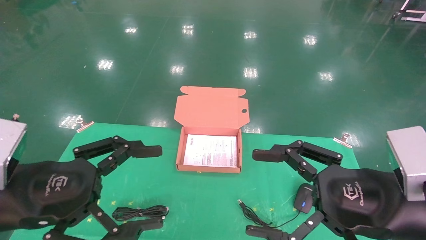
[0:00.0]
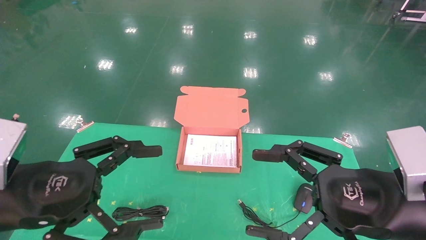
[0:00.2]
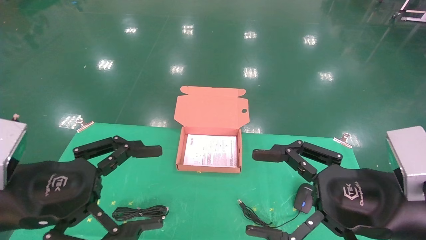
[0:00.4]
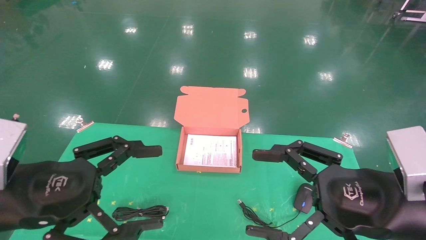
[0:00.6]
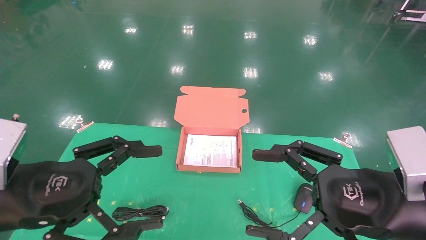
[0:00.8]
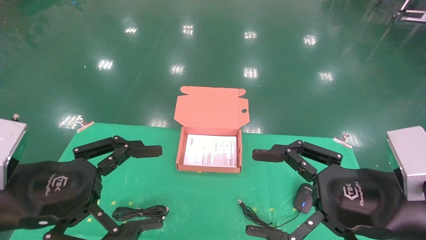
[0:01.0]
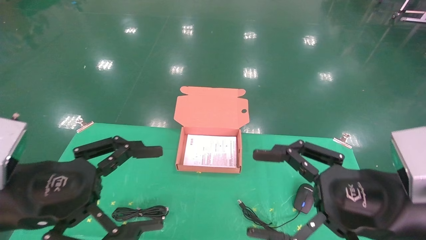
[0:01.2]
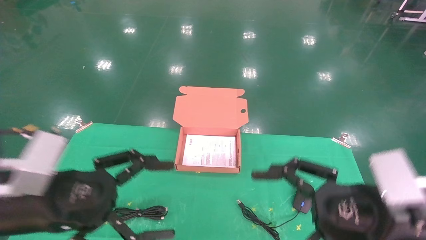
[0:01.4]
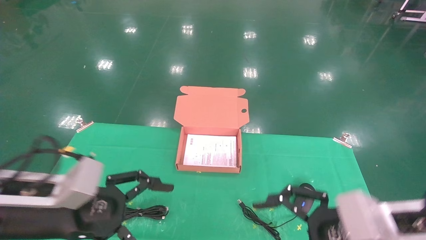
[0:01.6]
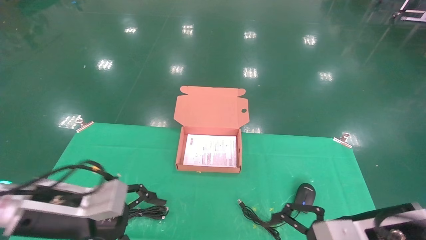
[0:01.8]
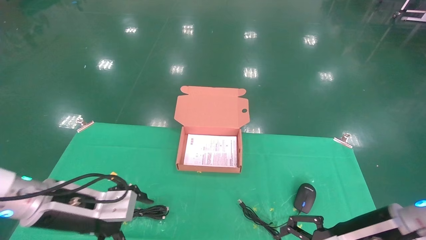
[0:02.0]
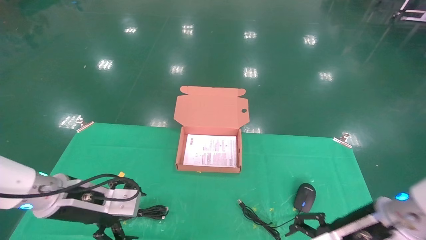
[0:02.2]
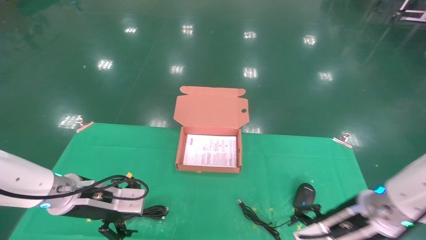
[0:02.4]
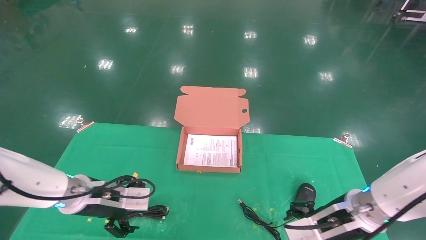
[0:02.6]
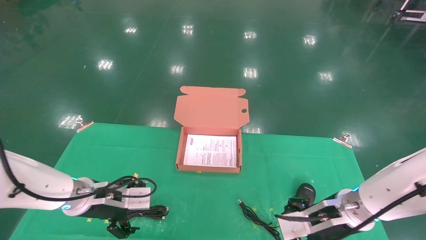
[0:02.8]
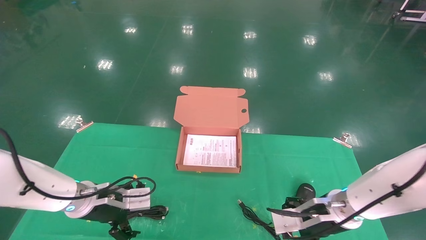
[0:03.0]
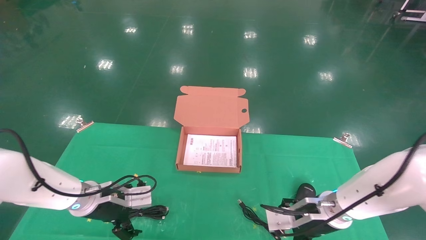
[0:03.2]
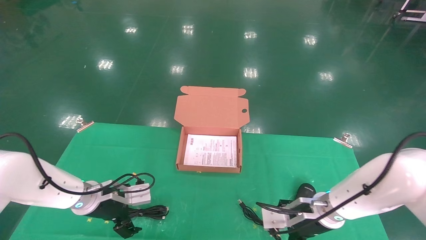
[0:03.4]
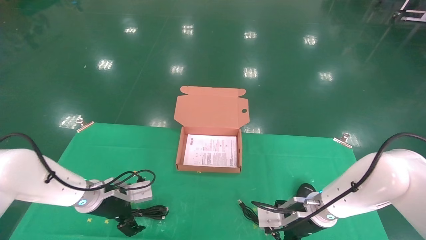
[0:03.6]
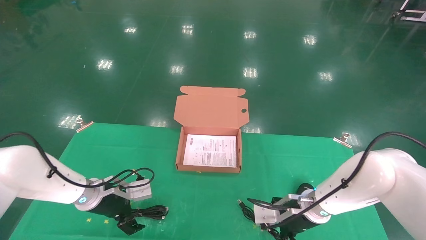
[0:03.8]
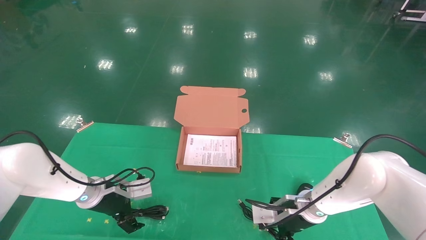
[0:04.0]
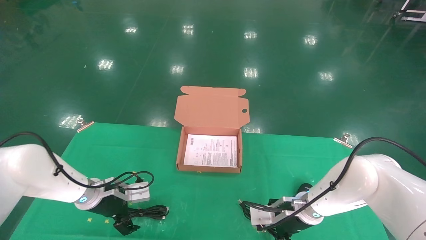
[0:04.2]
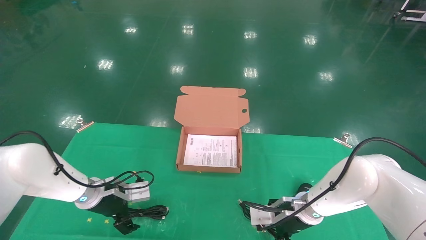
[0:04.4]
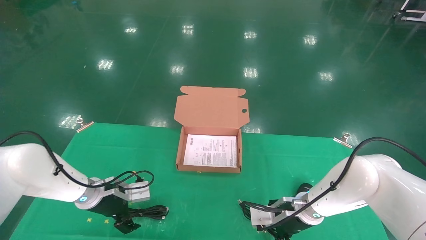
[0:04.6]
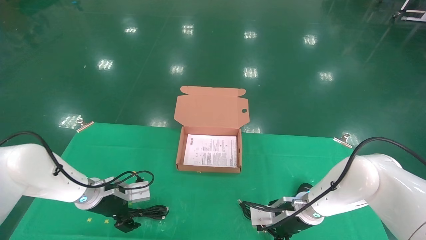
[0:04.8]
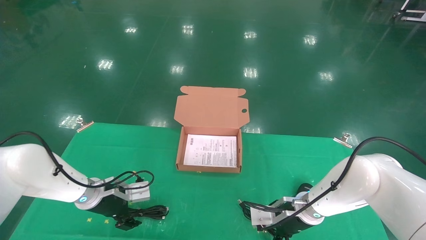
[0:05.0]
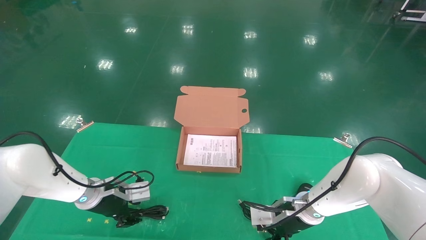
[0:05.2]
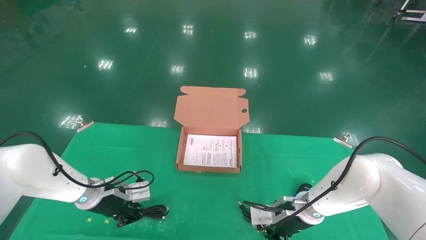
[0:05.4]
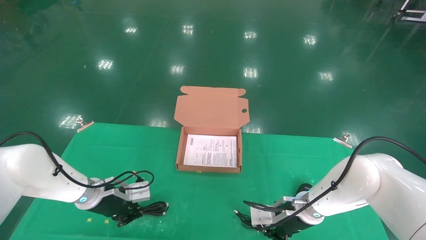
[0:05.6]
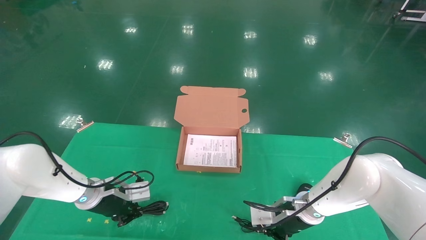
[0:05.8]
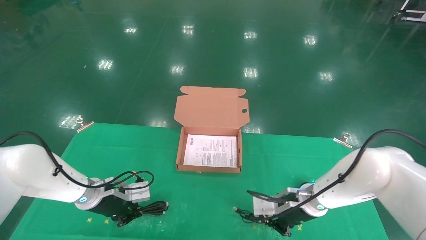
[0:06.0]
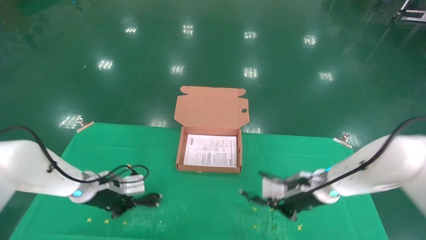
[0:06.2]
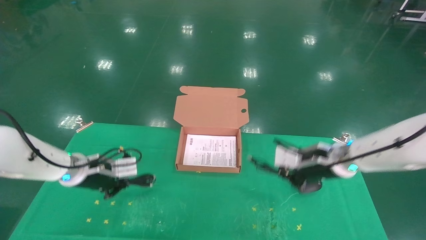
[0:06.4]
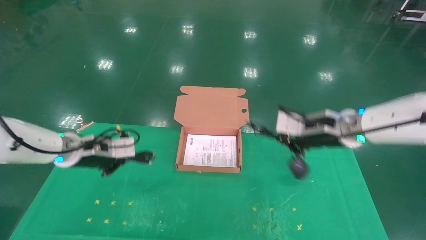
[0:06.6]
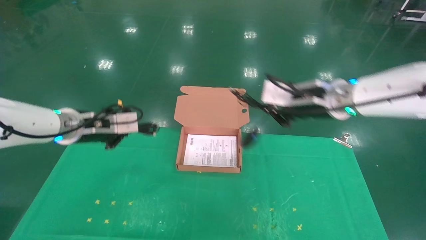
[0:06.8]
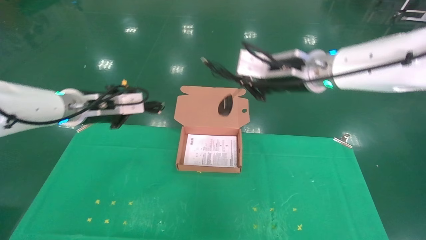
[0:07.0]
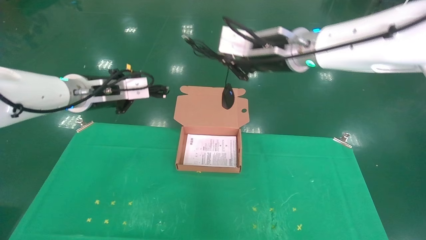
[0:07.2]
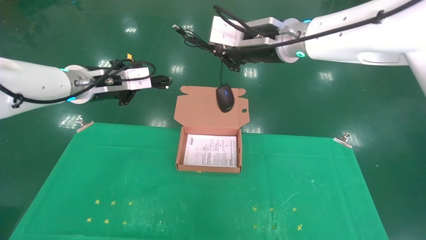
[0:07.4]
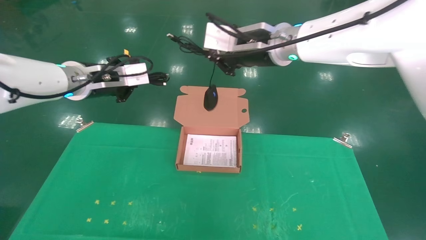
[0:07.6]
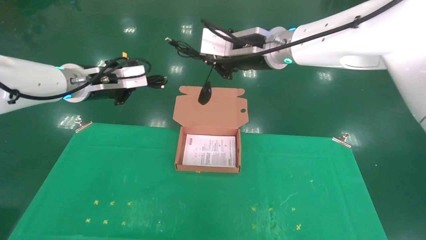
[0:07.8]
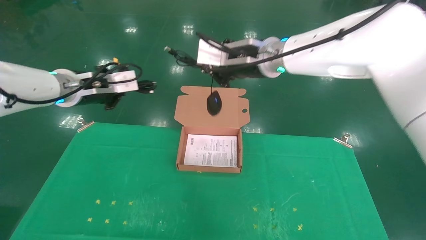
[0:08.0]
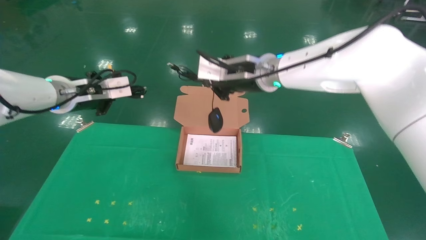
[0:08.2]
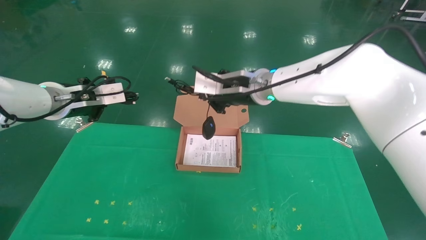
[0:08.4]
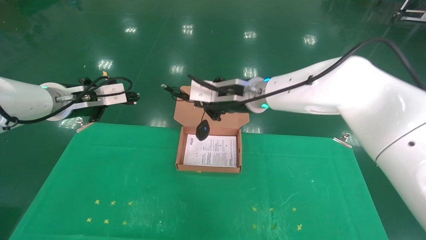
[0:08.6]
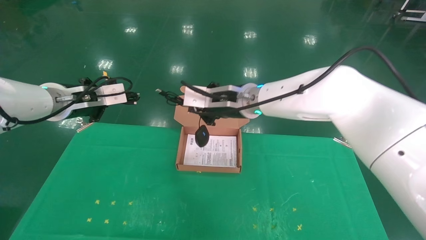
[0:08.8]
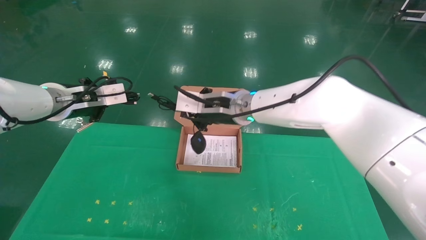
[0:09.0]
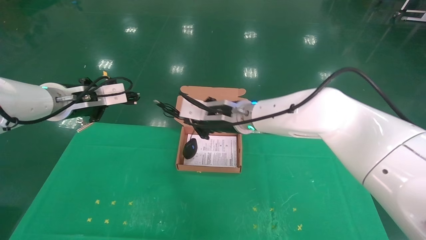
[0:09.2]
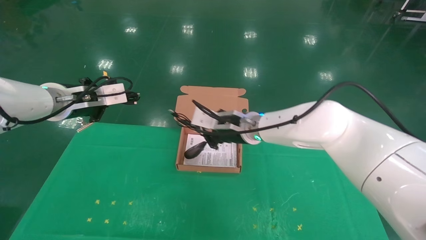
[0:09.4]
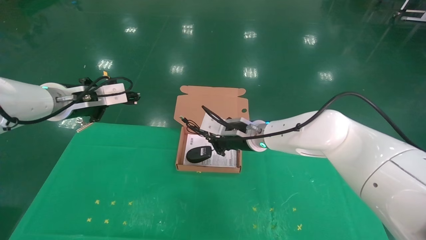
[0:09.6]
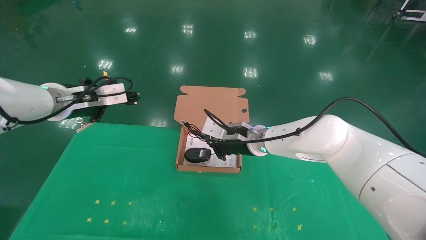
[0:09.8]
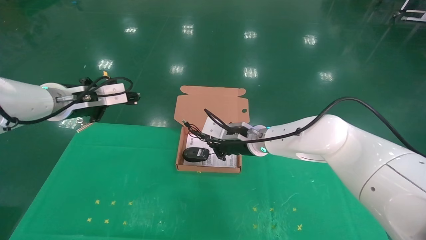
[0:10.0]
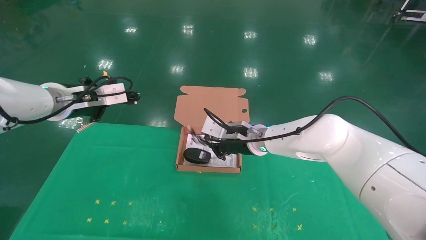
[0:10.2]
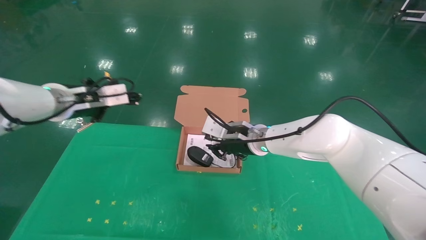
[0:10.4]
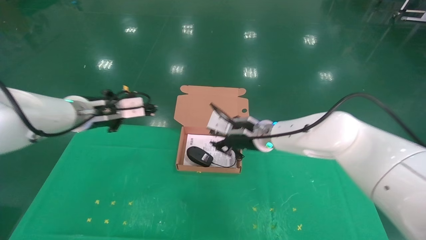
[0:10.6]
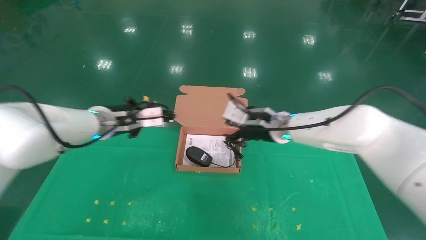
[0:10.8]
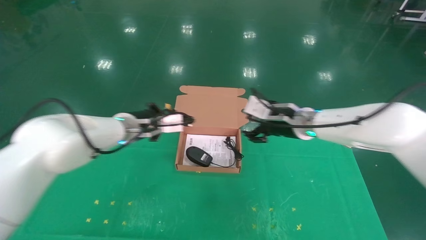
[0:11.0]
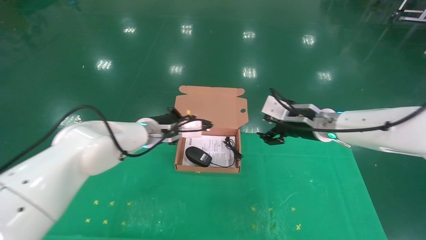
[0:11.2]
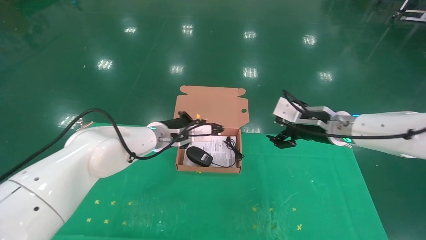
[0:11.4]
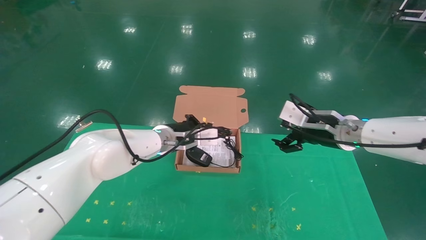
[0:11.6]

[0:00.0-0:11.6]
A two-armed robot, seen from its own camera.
Task of the whole recording: grasp data cable left put into box grasp mouse right put into box.
Step, 0:00.6 to 0:06.2: Grab and pick up both the mouse and power cord from the accessory packaging area at the same time.
0:01.4 to 0:02.8: The grippers both shift forward and downward by roughly 15 cm.
0:02.8 to 0:04.4: The left gripper is displaced forward by some 5 cm. Meanwhile the right gripper goes approximately 10 cm forward and downward.
0:04.4 to 0:05.8: The left gripper closes its fingers; the right gripper closes its fingers.
0:05.8 to 0:07.2: Both grippers move upward, some 30 cm.
0:07.2 to 0:08.8: The right gripper moves downward and to the left, roughly 15 cm.
0:08.8 to 0:10.2: The right gripper is displaced downward by about 10 cm.
0:10.2 to 0:11.6: The left gripper goes roughly 25 cm to the right, downward and forward; the right gripper heads to the right, covering about 15 cm, and opens.

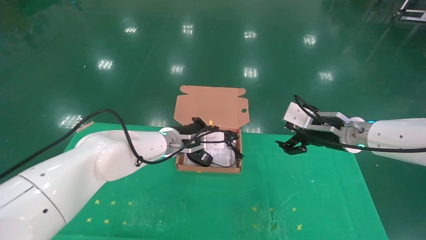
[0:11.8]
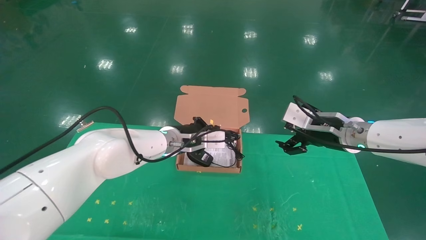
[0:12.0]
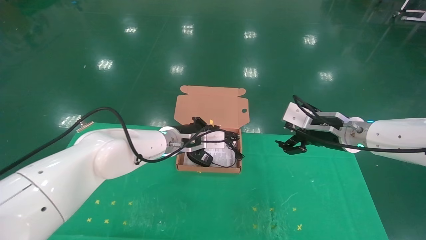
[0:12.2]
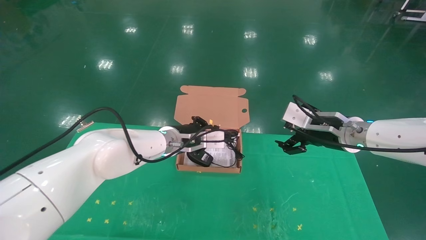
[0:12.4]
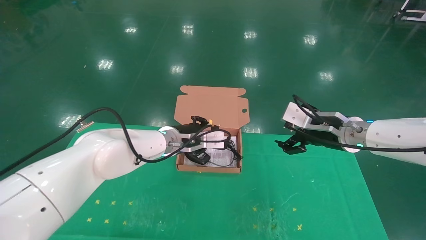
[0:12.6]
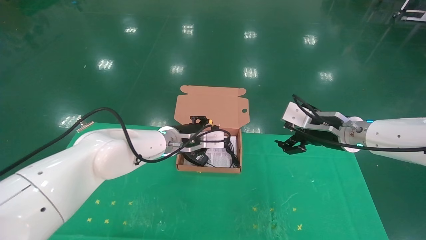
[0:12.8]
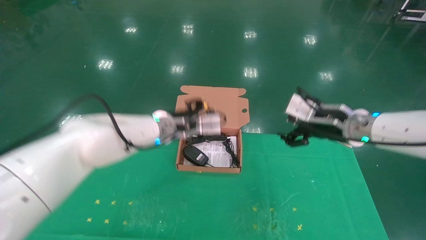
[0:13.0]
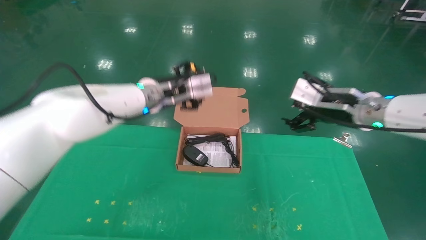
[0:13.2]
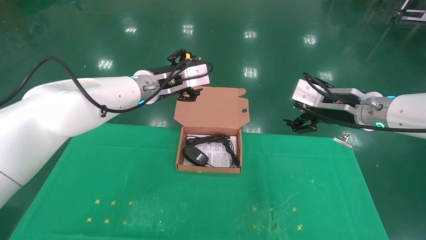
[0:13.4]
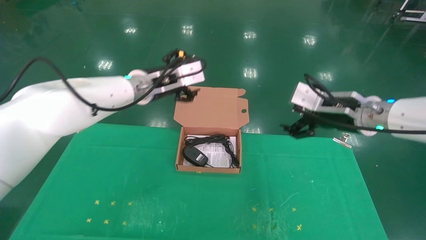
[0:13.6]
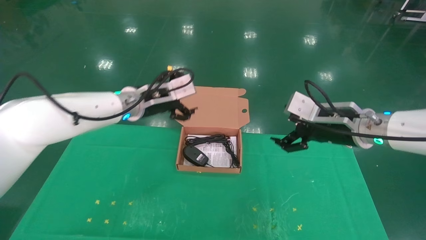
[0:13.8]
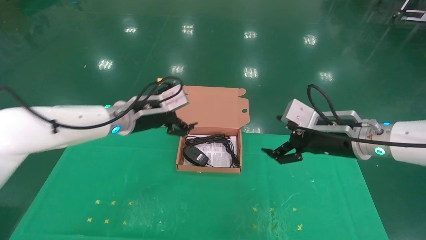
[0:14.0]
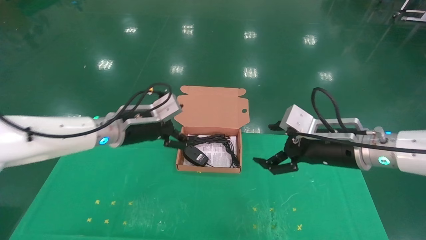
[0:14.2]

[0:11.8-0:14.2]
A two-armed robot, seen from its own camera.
Task of the whole recording: grasp data cable left put into box grasp mouse right put into box.
0:11.8 to 0:13.0: The left gripper heads upward, covering about 5 cm, and opens up.
0:13.0 to 0:14.2: The left gripper travels to the left and backward by some 10 cm, and opens. The right gripper goes some 5 cm backward.
